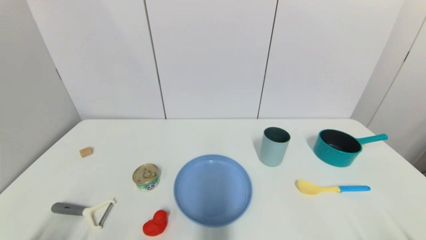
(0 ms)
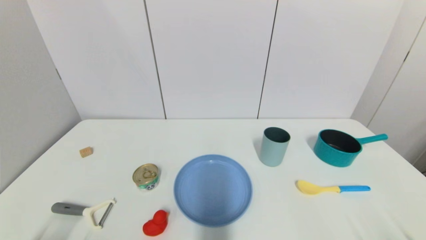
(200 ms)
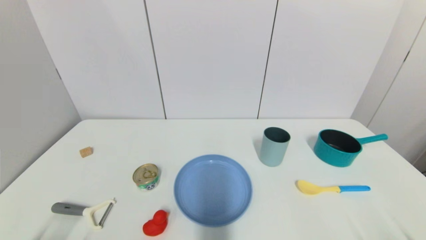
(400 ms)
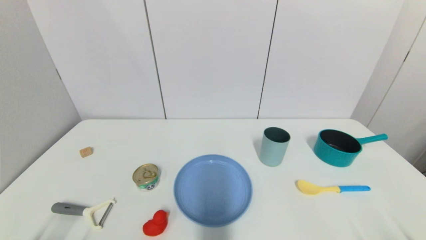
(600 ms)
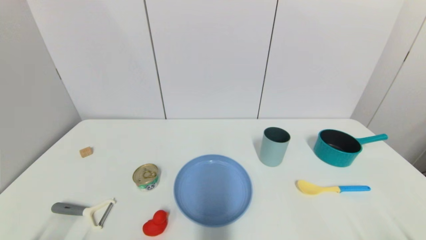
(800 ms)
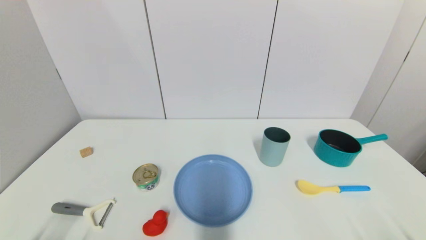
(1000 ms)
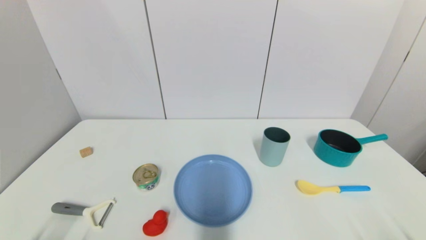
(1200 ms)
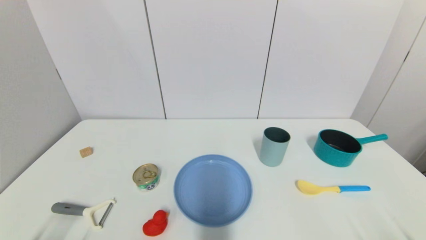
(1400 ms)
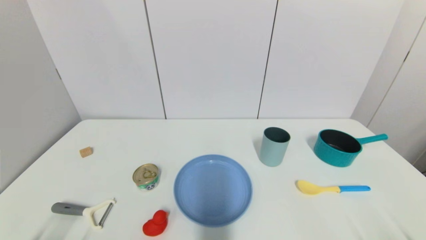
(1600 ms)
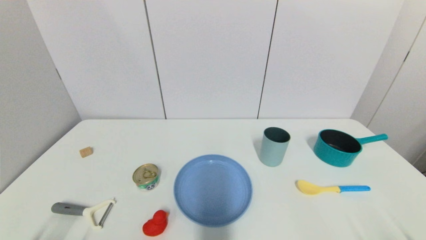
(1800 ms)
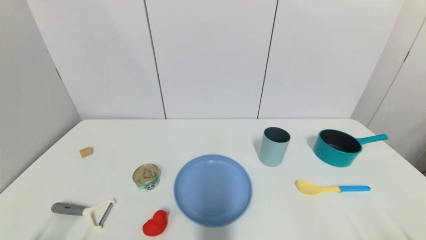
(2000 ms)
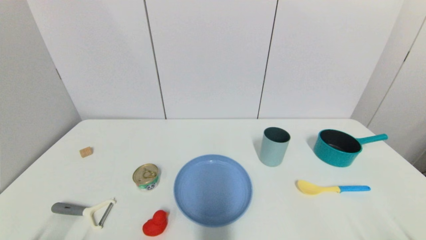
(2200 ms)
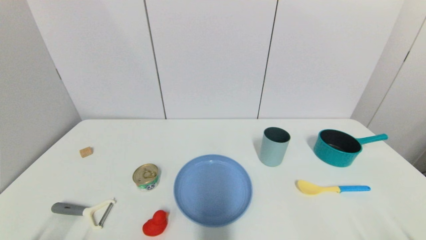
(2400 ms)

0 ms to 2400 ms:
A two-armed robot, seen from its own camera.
1200 ms to 2400 ms: Both grippers stay about where they are.
